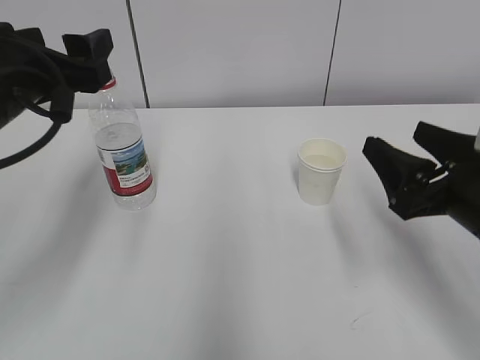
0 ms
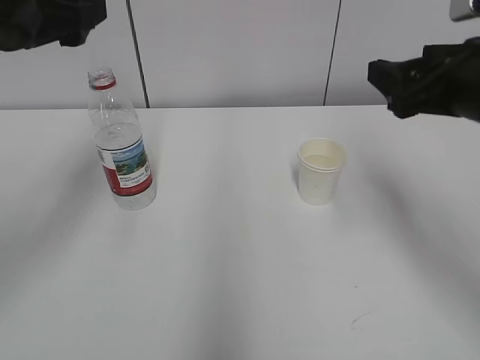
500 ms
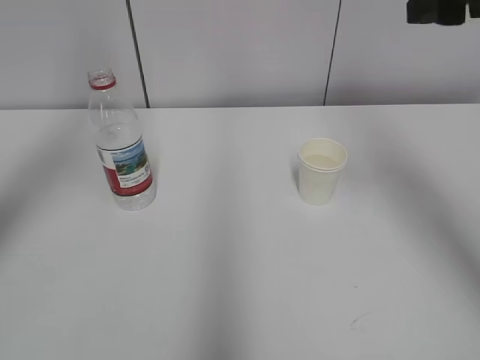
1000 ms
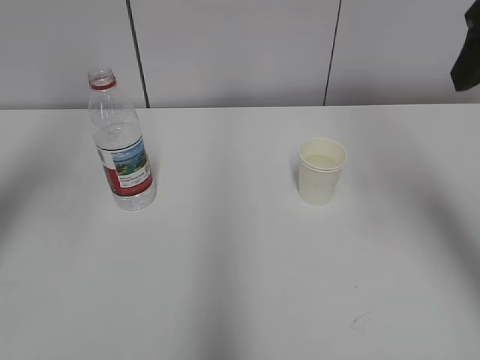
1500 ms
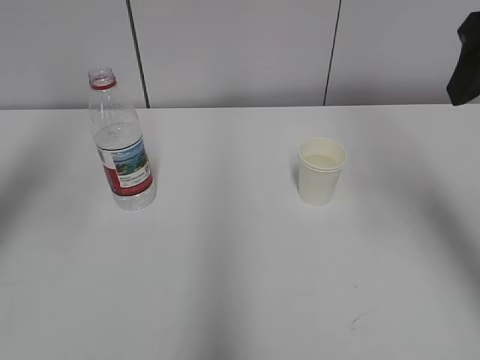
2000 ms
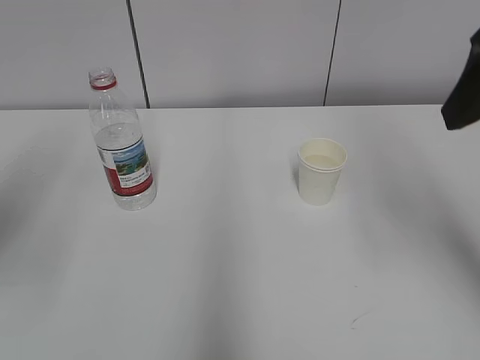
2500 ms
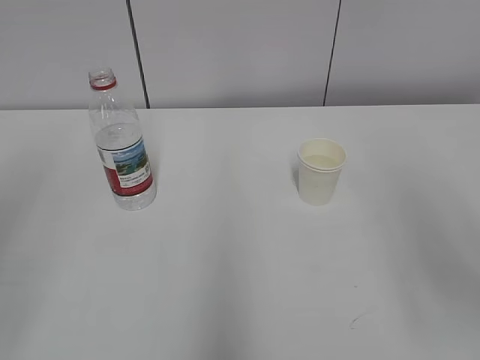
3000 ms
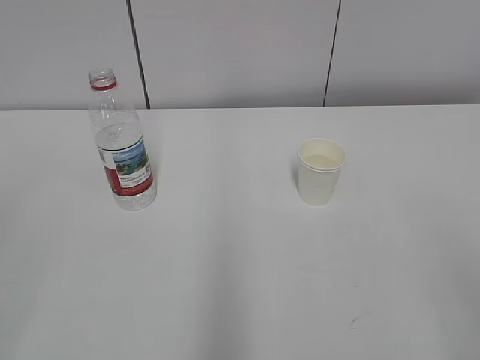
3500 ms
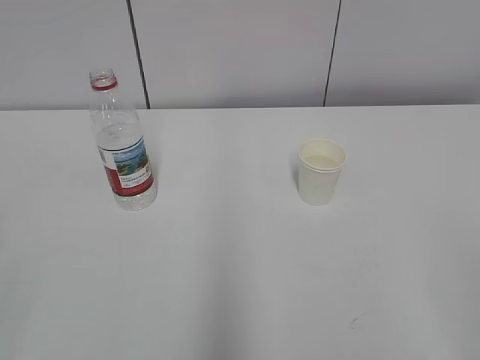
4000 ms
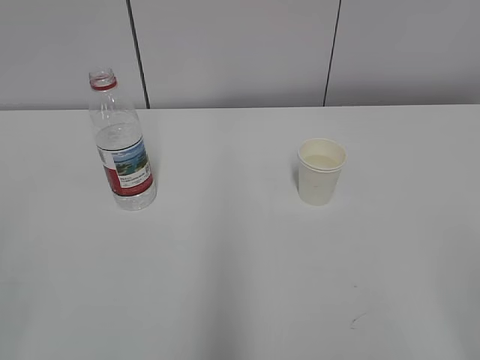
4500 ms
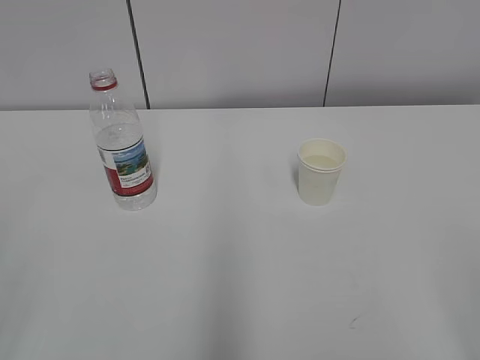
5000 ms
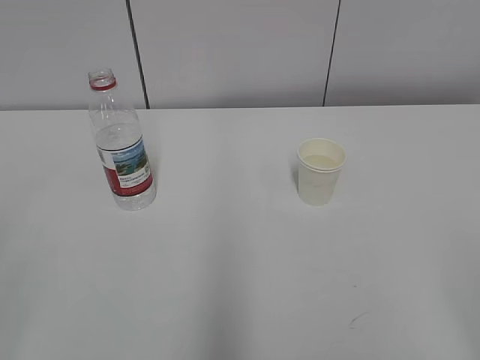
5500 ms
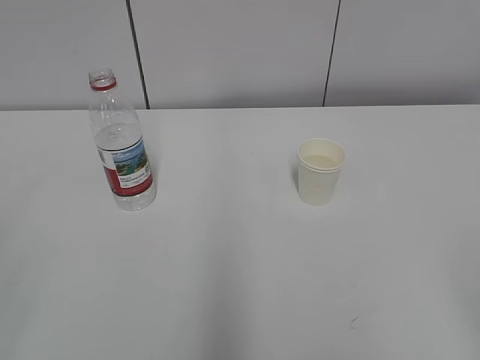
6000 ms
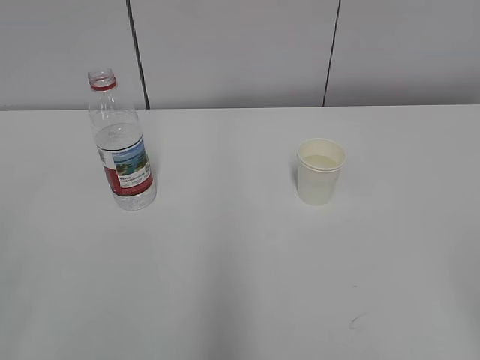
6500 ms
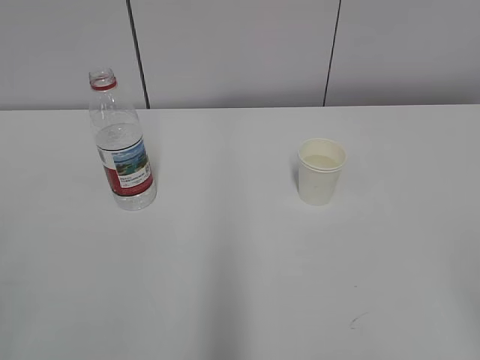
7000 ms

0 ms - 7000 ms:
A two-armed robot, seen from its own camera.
0 ms - 2000 ms: The left gripper is displaced upward and to the left by roughly 15 cm, while the right gripper is displaced upward by approximately 20 cm.
2000 ms - 3500 ms: Both grippers travel together backward, about 20 cm.

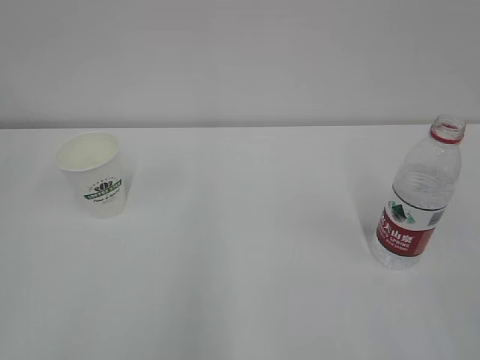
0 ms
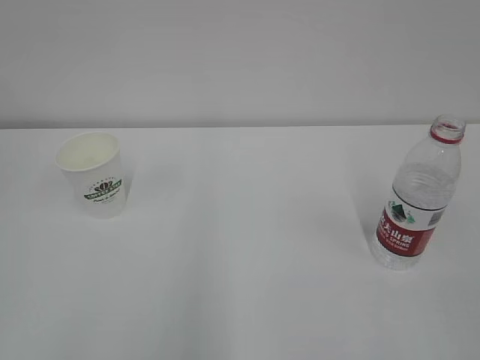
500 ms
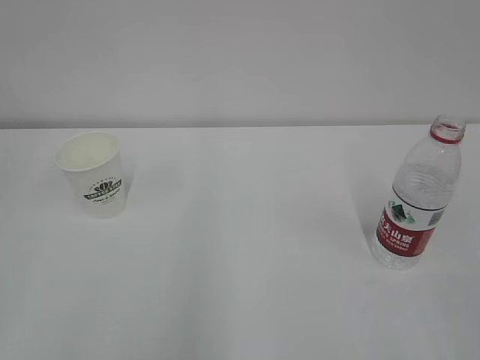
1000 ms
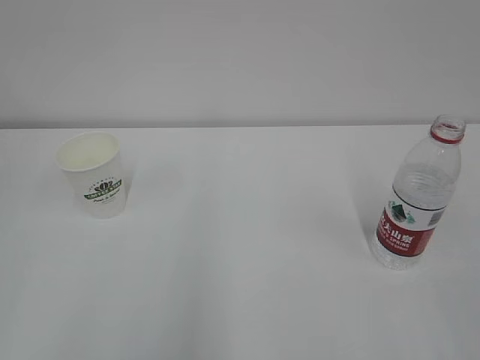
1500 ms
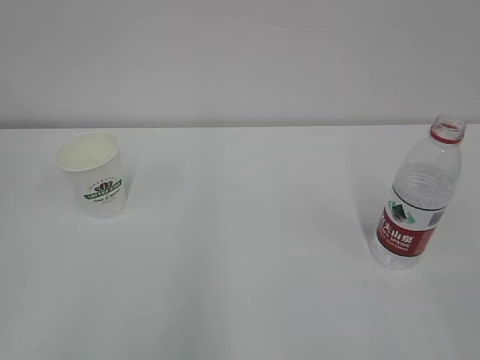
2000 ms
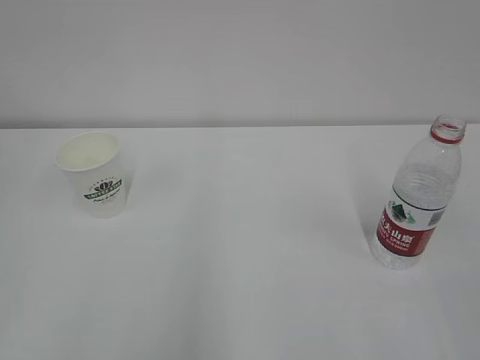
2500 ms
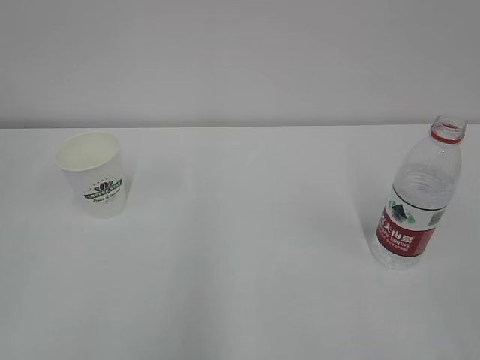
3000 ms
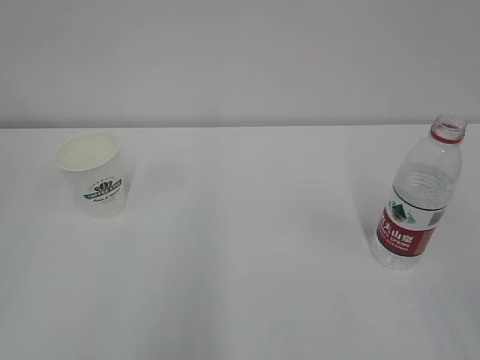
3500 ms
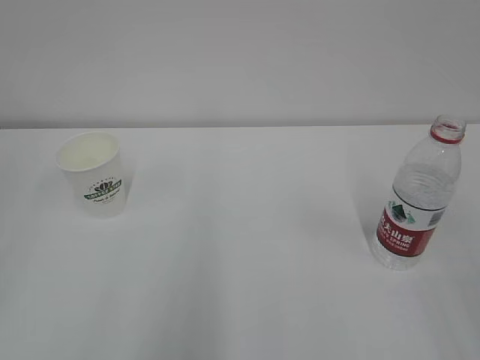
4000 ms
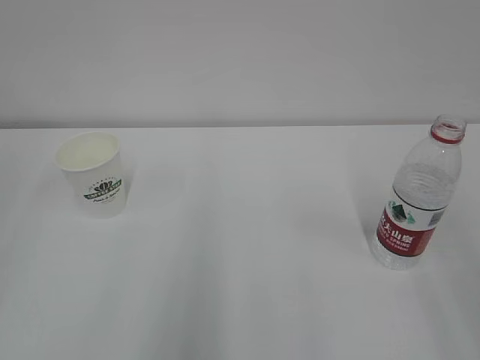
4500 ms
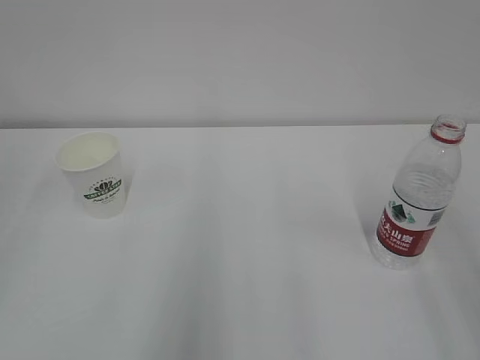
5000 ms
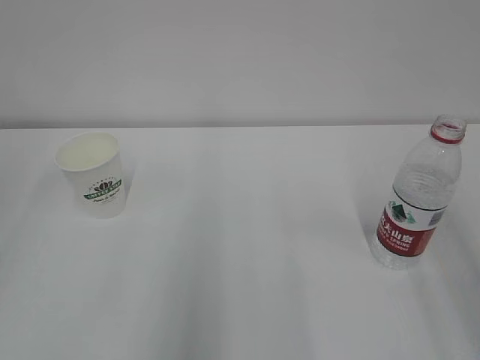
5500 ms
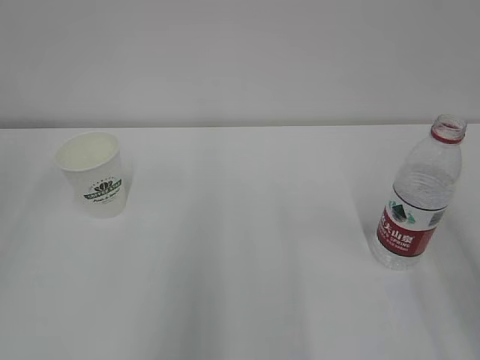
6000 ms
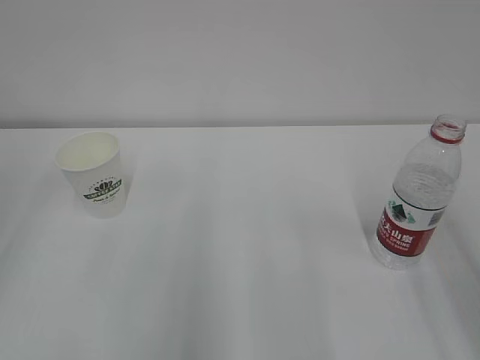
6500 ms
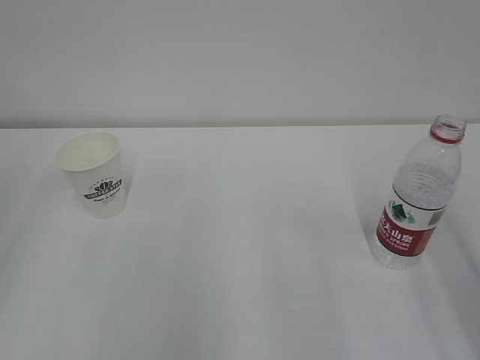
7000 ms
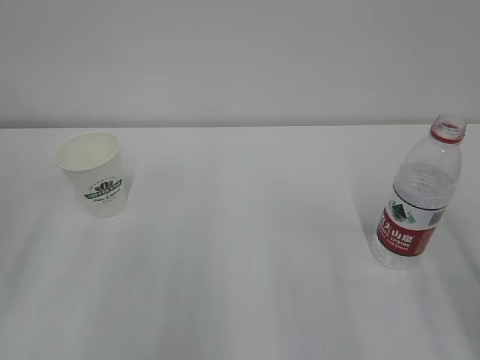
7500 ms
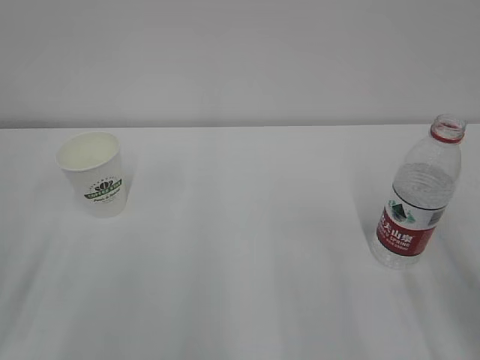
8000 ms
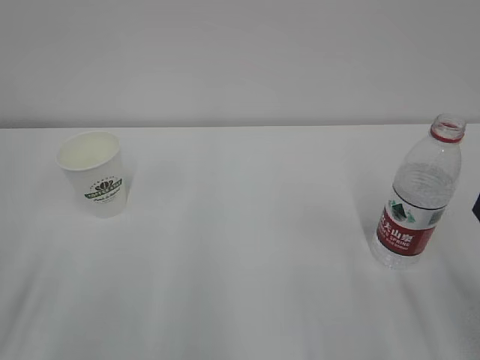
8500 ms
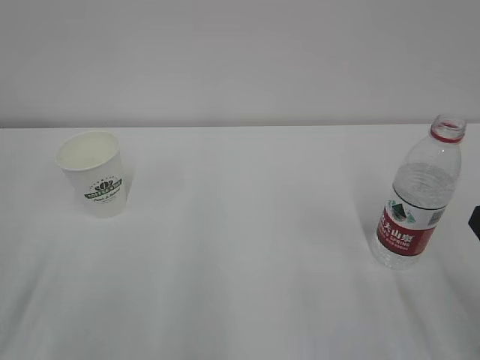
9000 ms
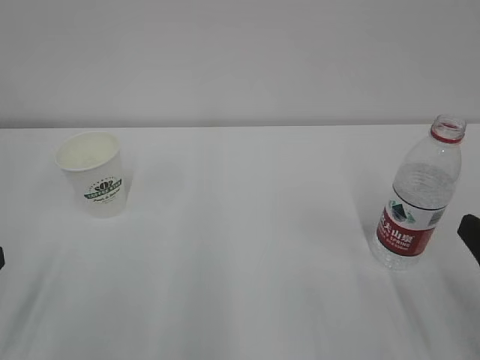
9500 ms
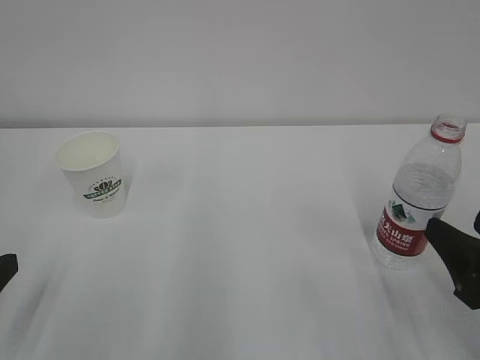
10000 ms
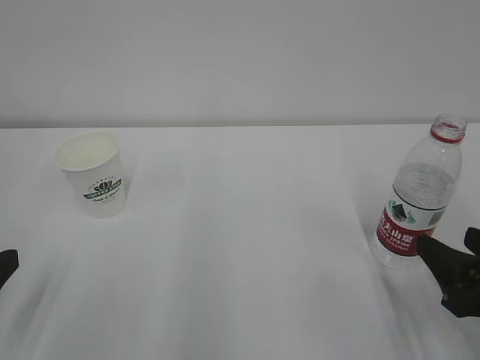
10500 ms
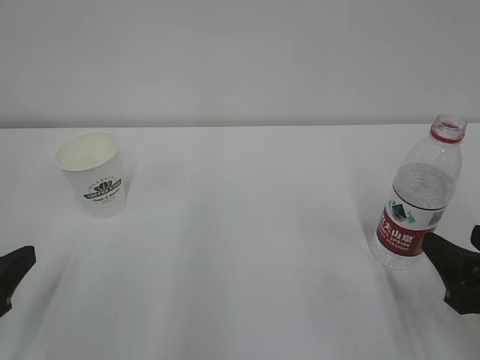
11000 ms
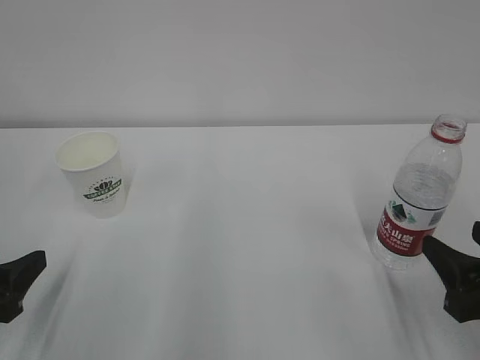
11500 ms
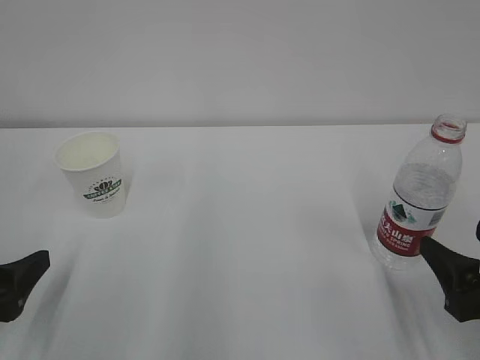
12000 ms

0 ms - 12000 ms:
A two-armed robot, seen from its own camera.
8000 ms - 10000 ms: The right gripper is displaced downward by roughly 10 cm.
10000 ms - 12000 ms: The left gripper opens.

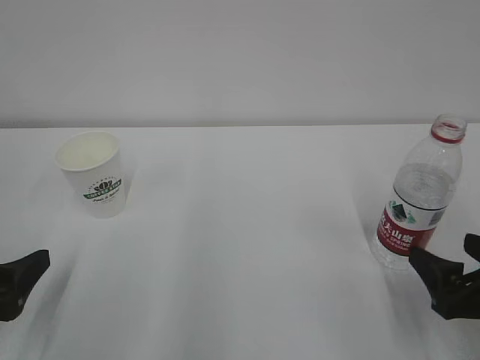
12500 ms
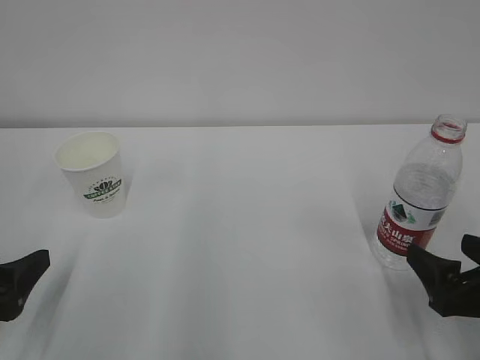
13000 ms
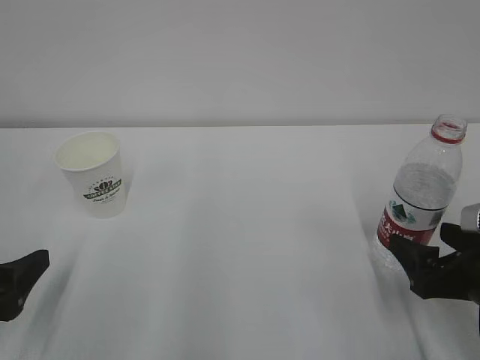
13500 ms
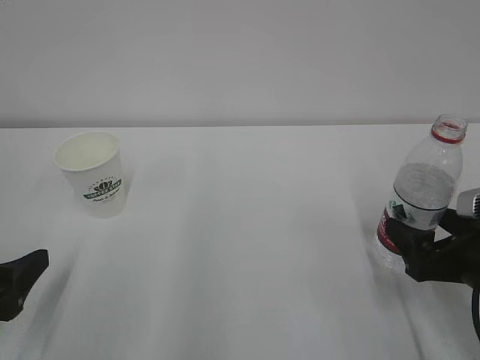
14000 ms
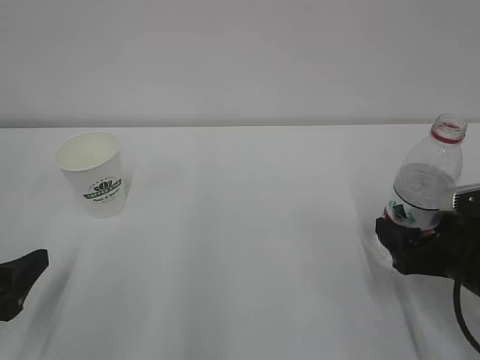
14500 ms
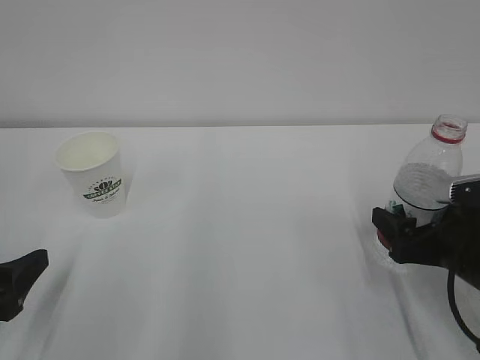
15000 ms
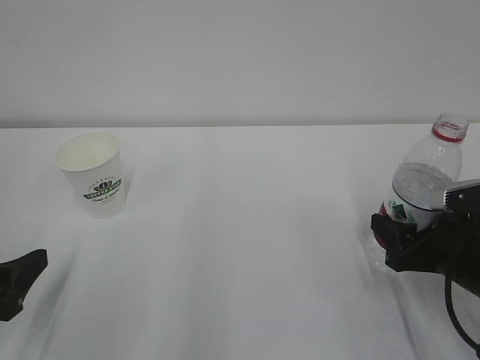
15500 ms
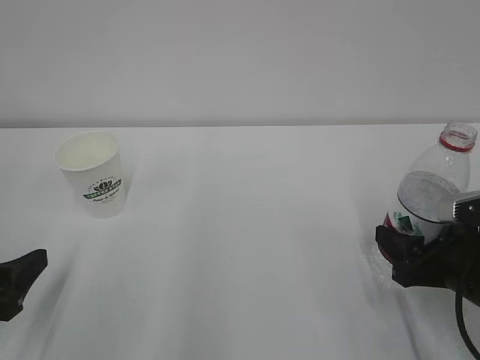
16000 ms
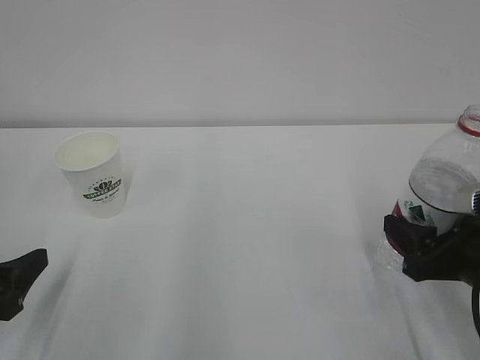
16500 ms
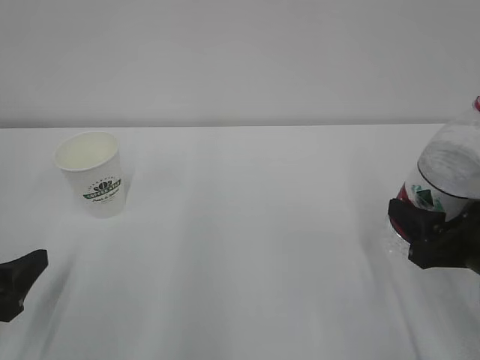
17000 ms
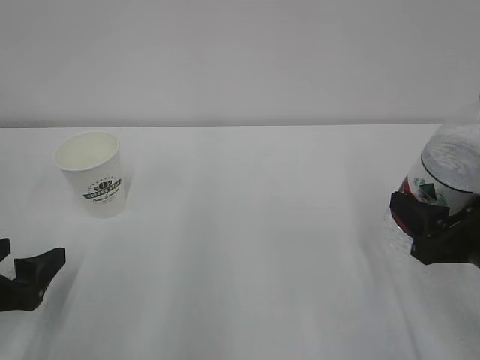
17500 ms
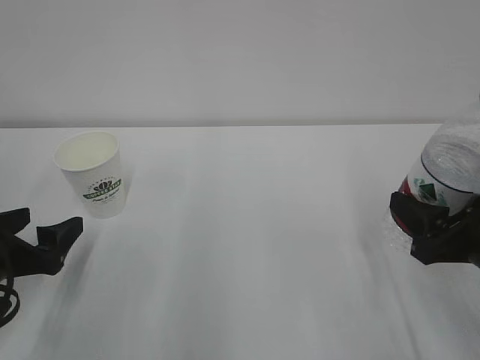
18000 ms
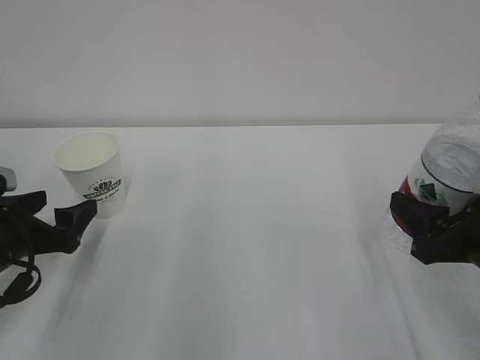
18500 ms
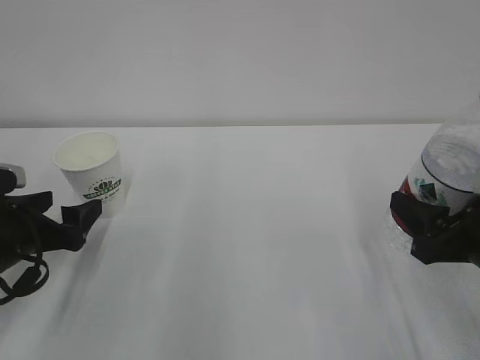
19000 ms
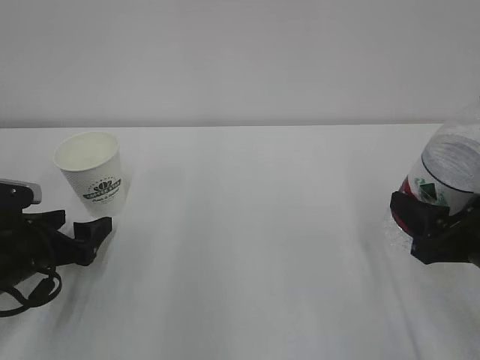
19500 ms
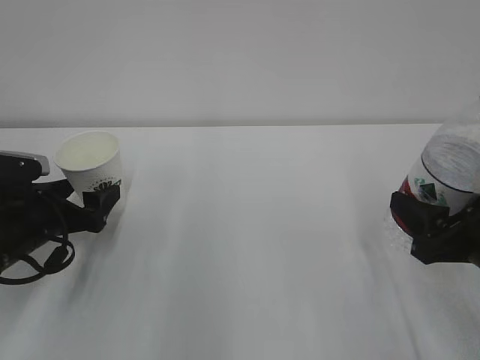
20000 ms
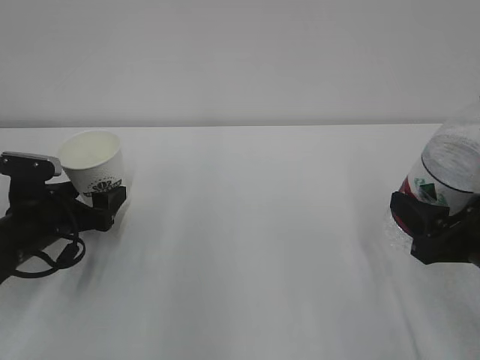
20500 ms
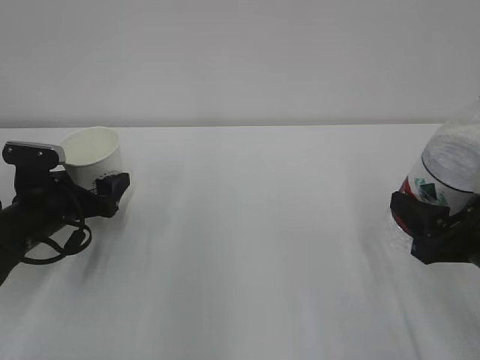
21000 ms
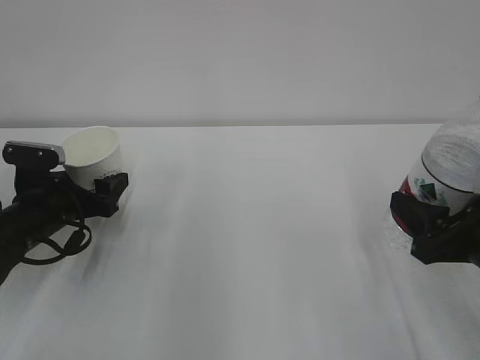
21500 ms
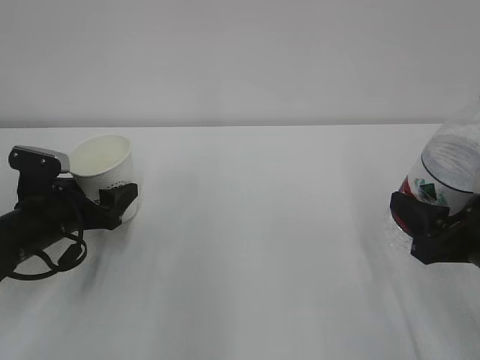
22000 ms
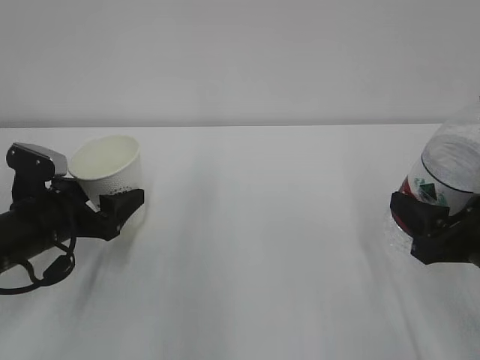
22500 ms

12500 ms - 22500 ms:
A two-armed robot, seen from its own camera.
12500 ms - 14500 ms: The right gripper goes about 5 cm forward.
14500 ms - 16500 ms: The right gripper closes up.
16500 ms - 18500 ms: The left gripper heads forward, covering about 10 cm, and opens up.
18500 ms - 20500 ms: The left gripper shifts approximately 5 cm forward.
20500 ms - 22500 ms: The left gripper closes up.
